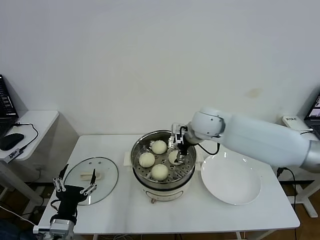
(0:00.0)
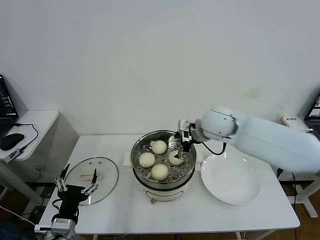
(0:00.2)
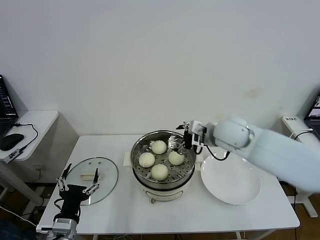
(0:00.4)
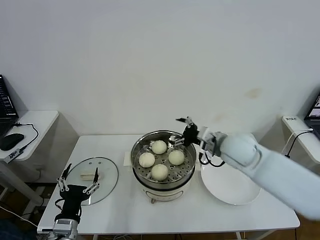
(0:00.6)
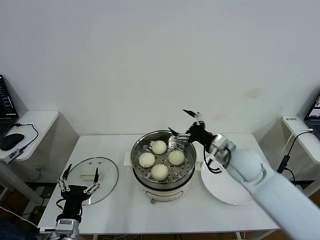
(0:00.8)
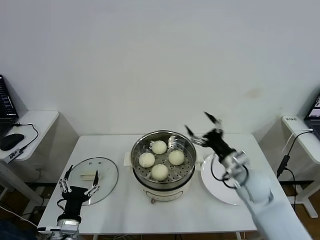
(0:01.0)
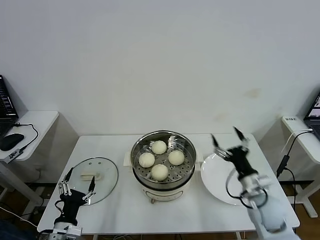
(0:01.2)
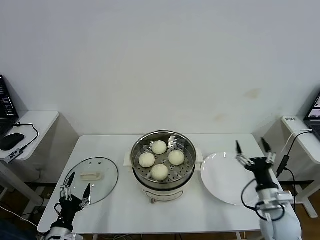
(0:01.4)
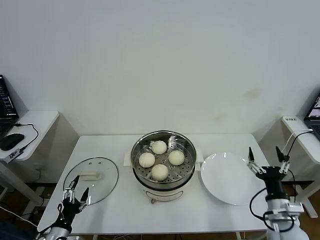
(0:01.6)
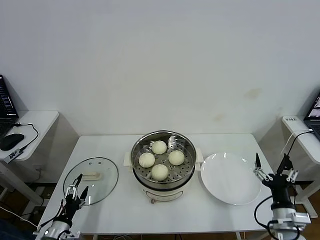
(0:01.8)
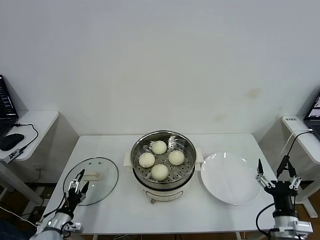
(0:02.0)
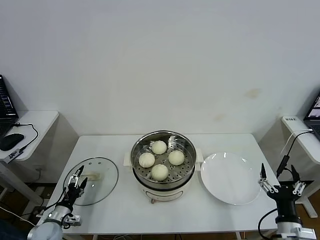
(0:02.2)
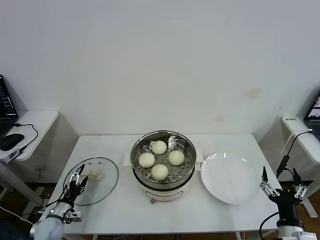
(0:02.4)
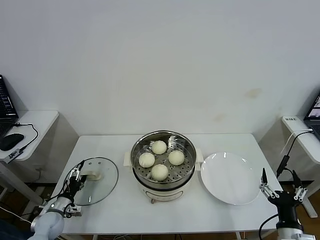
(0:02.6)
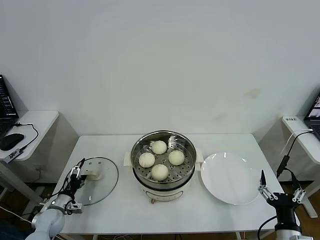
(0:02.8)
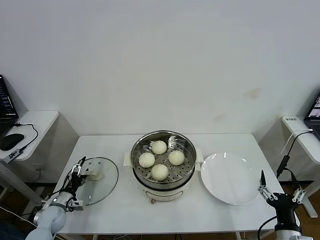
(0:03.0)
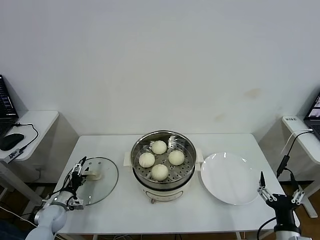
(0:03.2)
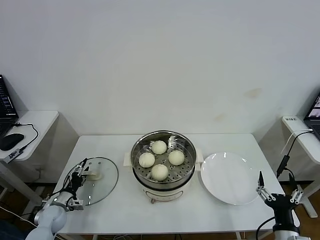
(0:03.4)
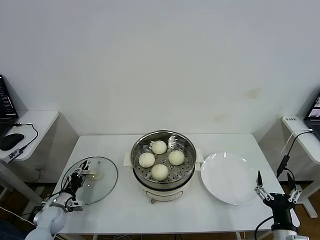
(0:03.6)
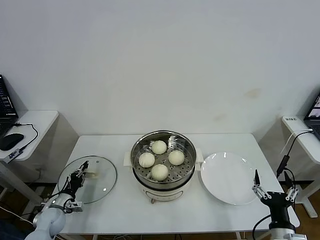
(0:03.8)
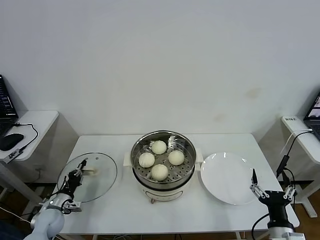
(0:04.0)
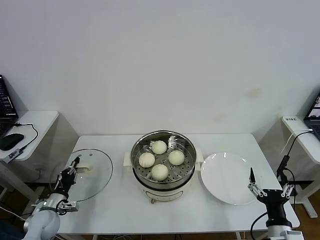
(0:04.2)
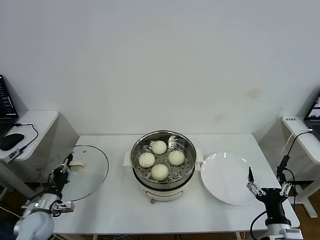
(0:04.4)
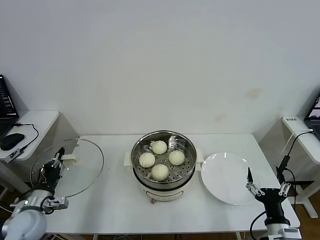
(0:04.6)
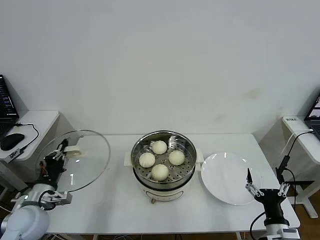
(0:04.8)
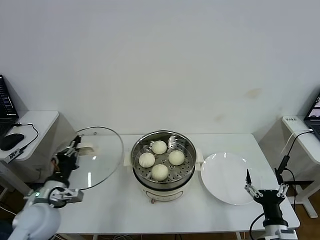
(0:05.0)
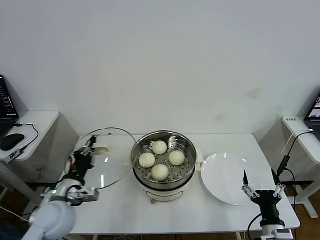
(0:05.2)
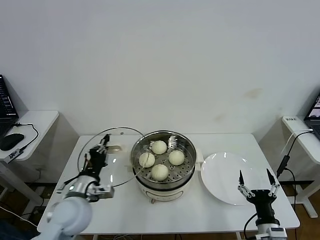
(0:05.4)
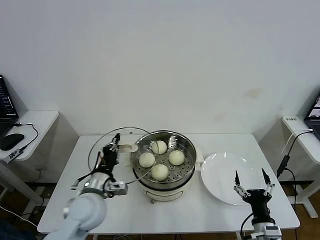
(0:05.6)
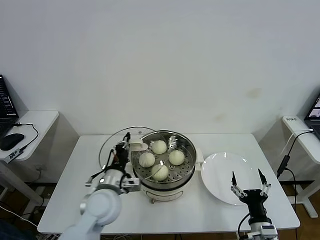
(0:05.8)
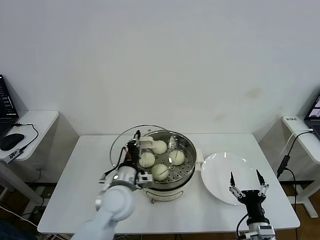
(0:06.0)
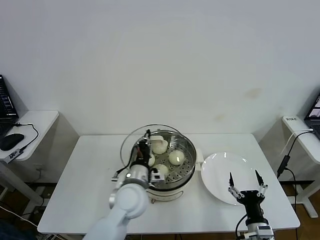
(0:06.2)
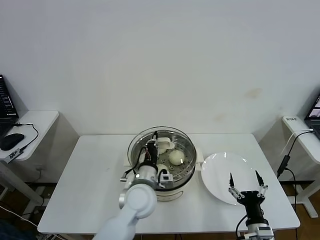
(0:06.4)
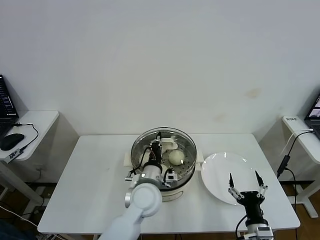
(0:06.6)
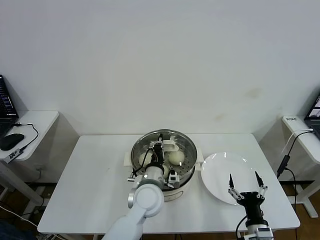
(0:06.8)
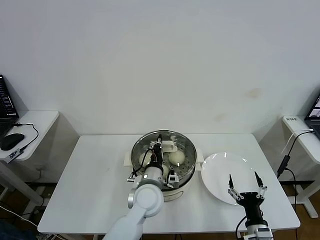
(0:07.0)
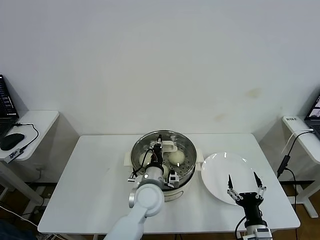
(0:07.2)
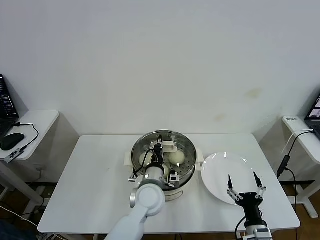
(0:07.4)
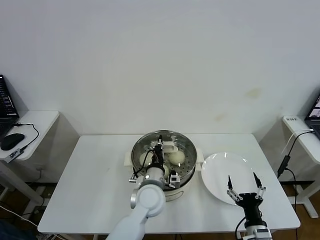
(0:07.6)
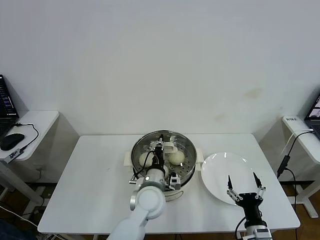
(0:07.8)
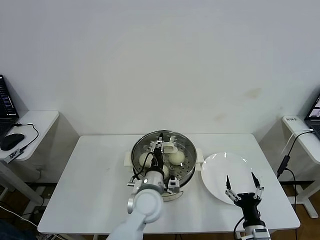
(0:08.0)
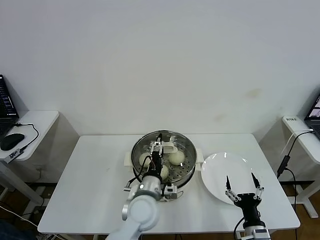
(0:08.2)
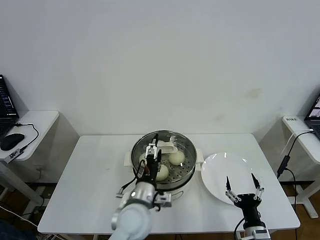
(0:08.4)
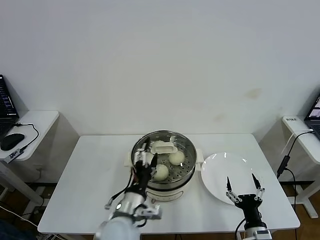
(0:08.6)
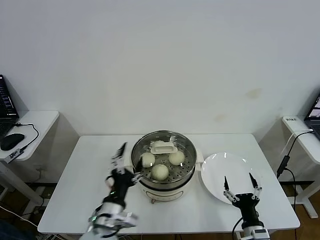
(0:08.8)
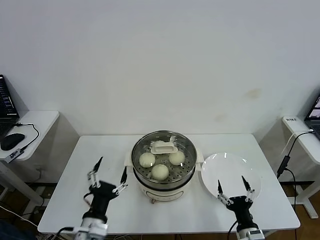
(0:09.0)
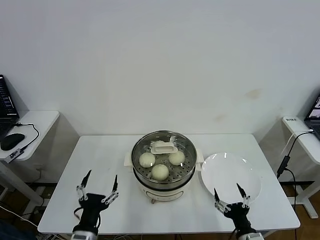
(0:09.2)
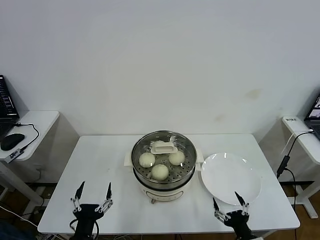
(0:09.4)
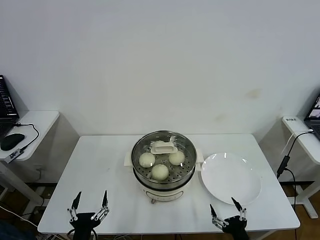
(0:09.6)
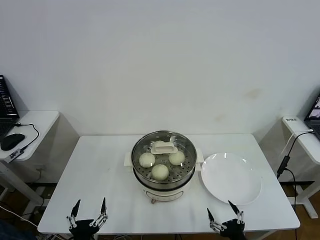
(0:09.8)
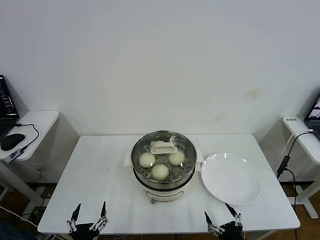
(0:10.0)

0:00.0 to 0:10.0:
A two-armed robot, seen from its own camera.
Task of the whole recording: take steamed baozi put them in steamer then cover it.
Step, 0:00.0 to 0:04.0: Grasp the pot lid with left gripper.
Step, 0:04.2 to 0:07.8: Place the pot lid on the steamer with left gripper.
0:00.0 to 0:01.4: The left gripper is displaced downward and to the left by approximately 10 cm; the right gripper goes roughly 35 cm backward, to the right and downward.
0:01.4 to 0:02.8: The right gripper shifts about 10 cm backward. The left gripper moves forward, to the left and downward, approximately 20 cm.
0:02.8 to 0:04.2: The left gripper closes its fingers.
0:04.2 to 0:05.8: The left gripper travels to the right and upward by approximately 30 cm.
0:05.8 to 0:07.2: The left gripper heads to the right, covering about 15 cm.
0:07.2 to 0:08.6: The left gripper heads backward and to the left, covering approximately 10 cm, and opens its fingers.
0:08.6 to 0:10.0: The right gripper travels backward by some 5 cm, while the left gripper shifts roughly 20 cm backward, to the left and downward.
